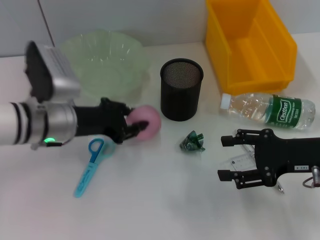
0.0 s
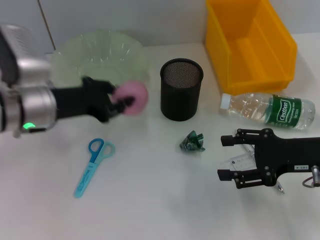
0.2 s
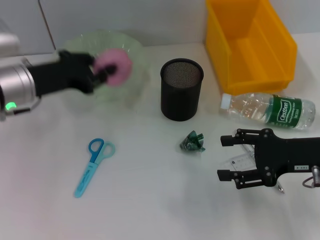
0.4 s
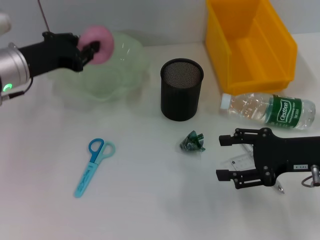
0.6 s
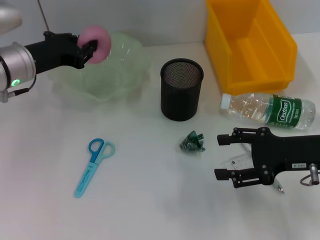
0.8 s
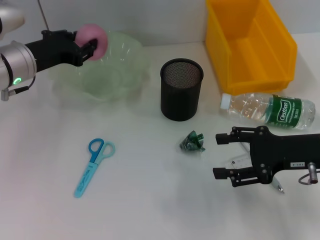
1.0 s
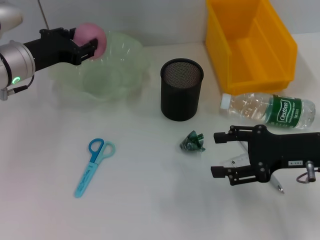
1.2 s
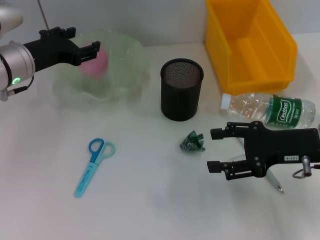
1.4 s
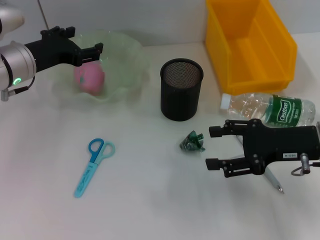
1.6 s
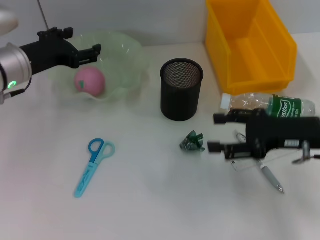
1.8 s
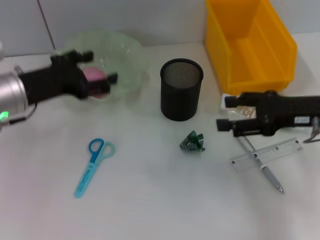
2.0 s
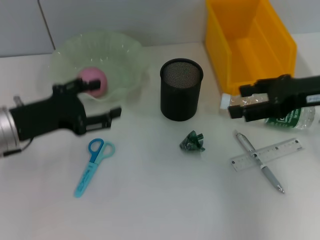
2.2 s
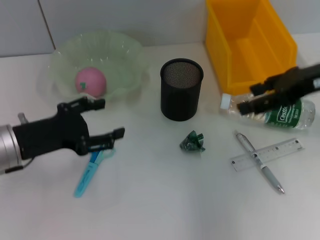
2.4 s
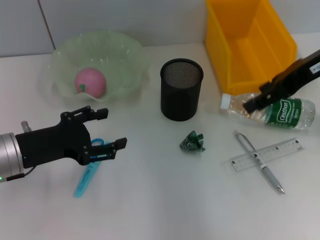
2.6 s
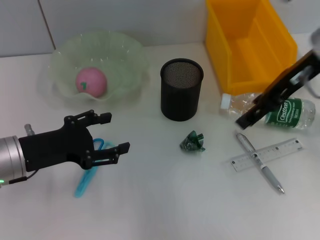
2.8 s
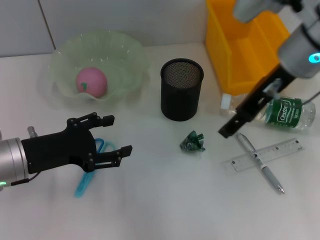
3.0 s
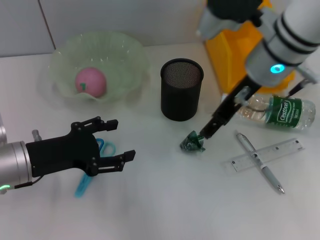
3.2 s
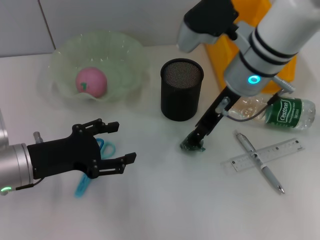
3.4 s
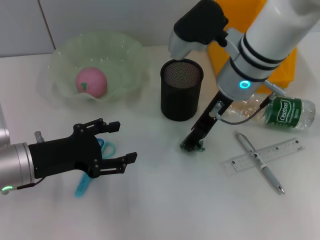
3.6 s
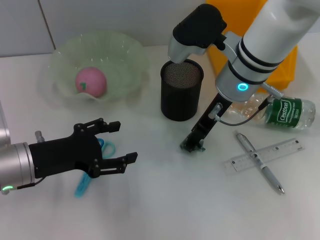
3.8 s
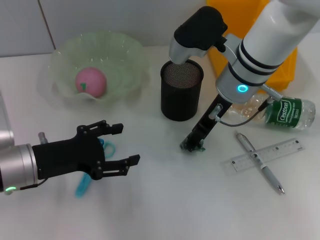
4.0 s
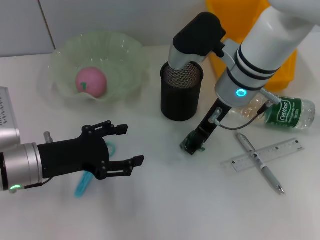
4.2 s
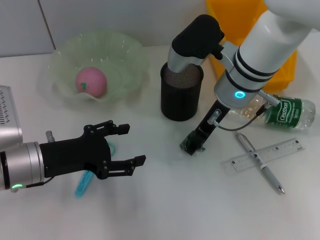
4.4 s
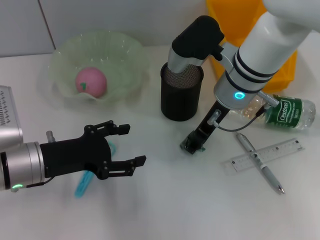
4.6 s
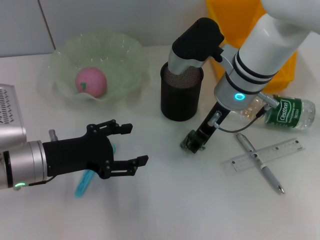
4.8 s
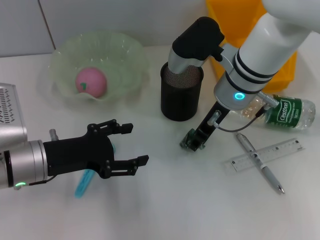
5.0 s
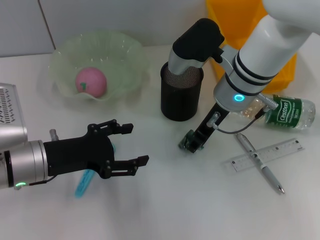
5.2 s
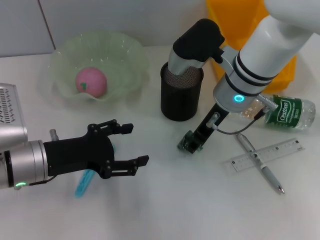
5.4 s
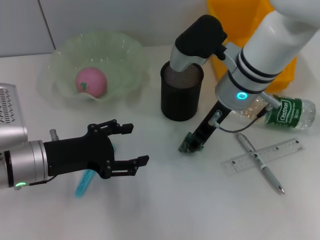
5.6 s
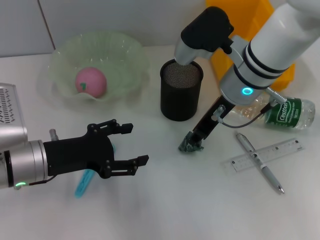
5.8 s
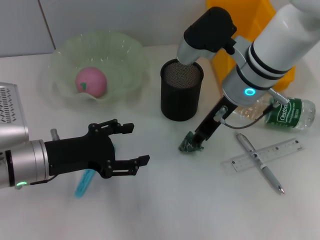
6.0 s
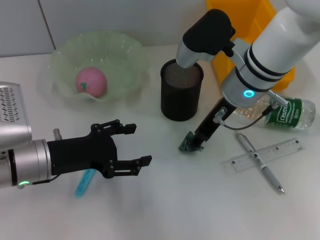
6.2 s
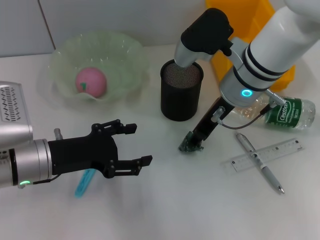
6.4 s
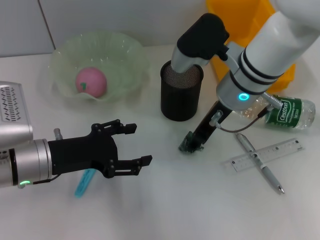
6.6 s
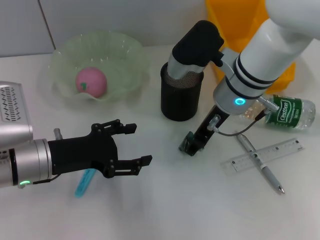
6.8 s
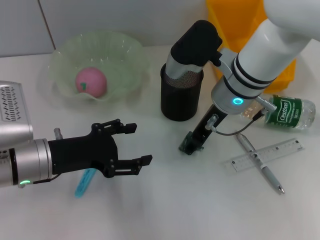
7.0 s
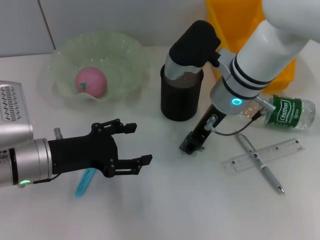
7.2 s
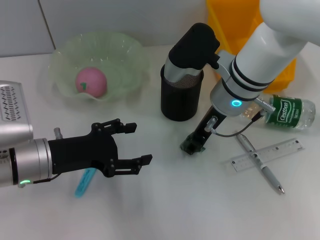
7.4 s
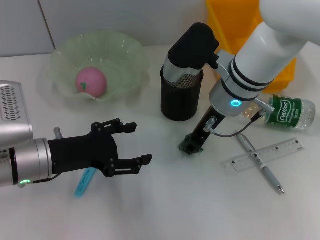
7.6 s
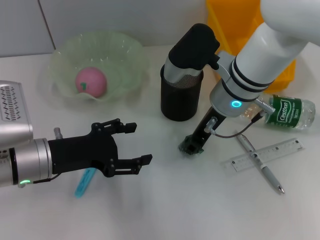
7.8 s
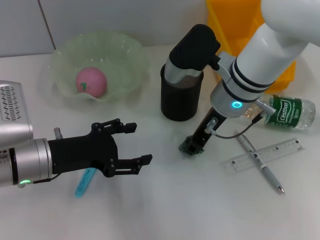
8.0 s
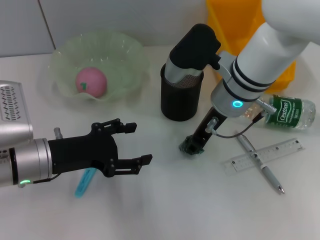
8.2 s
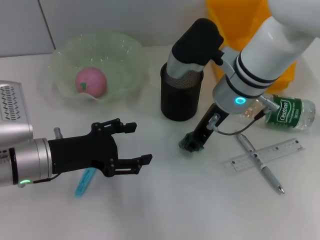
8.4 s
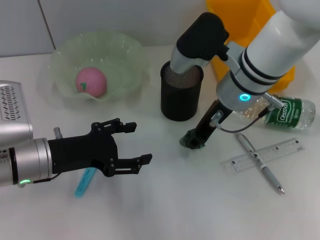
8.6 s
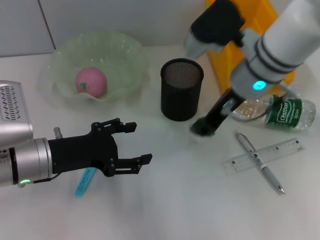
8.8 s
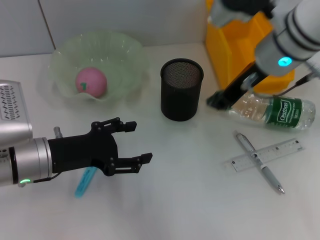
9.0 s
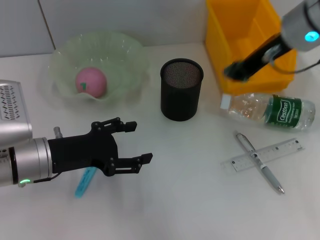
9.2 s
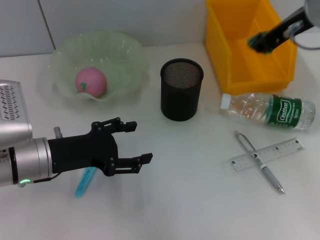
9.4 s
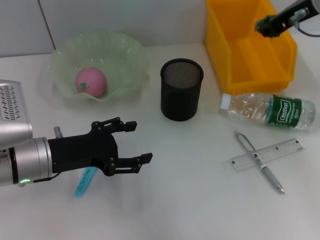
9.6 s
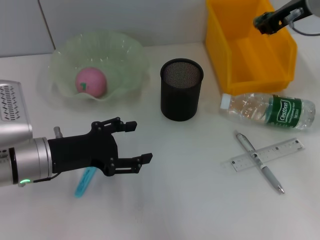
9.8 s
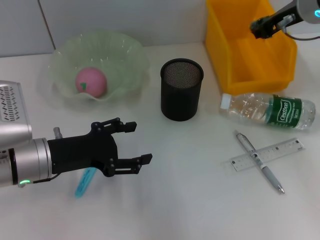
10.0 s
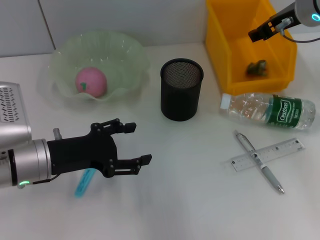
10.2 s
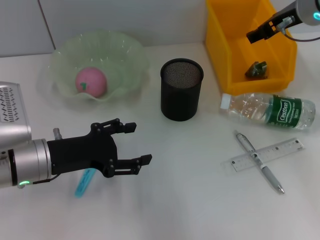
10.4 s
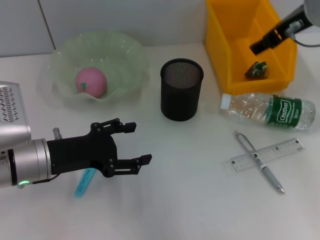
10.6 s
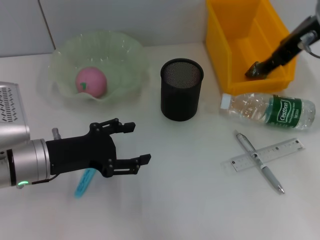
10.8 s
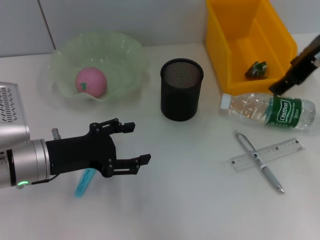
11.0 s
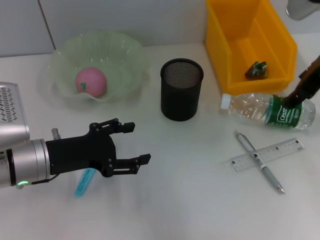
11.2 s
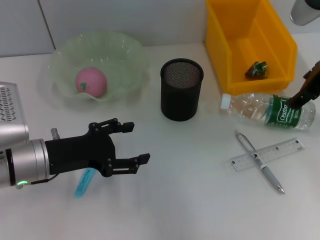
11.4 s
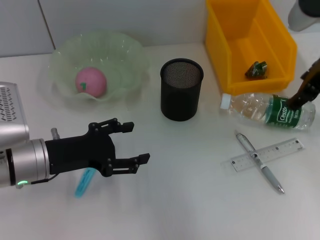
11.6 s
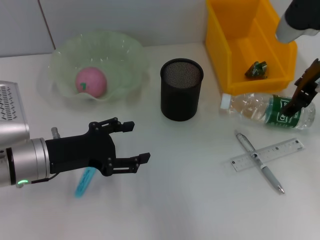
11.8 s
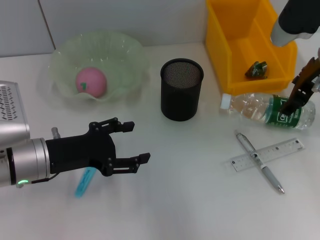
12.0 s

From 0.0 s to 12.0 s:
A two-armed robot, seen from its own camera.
Step, from 0.0 s to 1.2 s: Place the peach into the fruit bowl with the left hand.
Step, from 1.6 s to 8.0 s: Grab the plastic with the right hand.
Step, from 8.2 s to 10.2 s: Place the plastic into the trash can with the right hand.
From 0.0 s to 1.6 s: The left gripper travels forward by roughly 5 cm, and opens its fingers.
From 1.6 s to 3.0 s: The left gripper shifts some 10 cm backward. Meanwhile the right gripper heads upward, to the left and forward, covering about 15 cm.
From 3.0 s to 4.4 s: The right gripper is displaced downward and to the left by approximately 10 cm.
From 4.4 s to 6.0 s: The right gripper closes its fingers.
From 6.0 s to 7.6 s: There are only small adjustments of the grippers.
From 7.6 s to 9.0 s: The right gripper is displaced upward and to the right by approximately 10 cm.
From 9.0 s to 10.4 s: The right gripper heads to the right, covering approximately 5 cm, and opens its fingers.
From 10.4 s to 12.0 s: The right gripper shifts by some 5 cm.

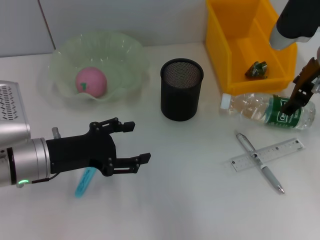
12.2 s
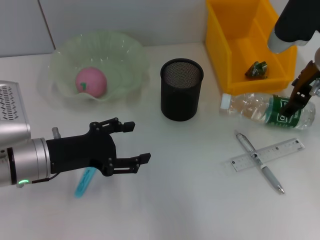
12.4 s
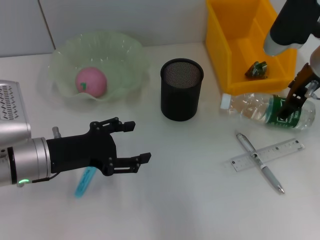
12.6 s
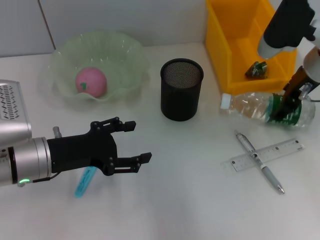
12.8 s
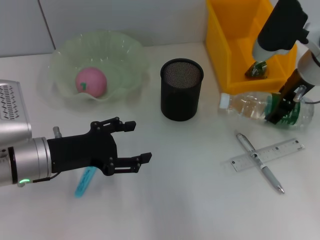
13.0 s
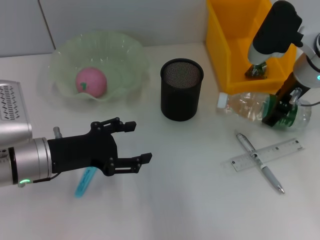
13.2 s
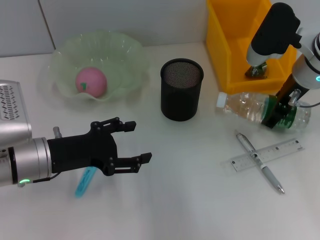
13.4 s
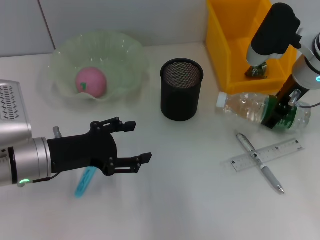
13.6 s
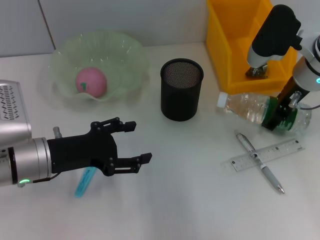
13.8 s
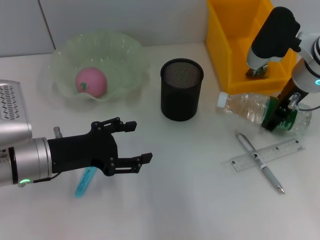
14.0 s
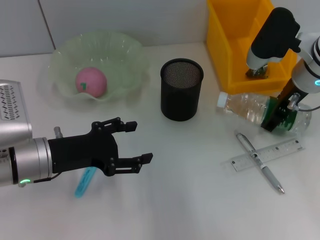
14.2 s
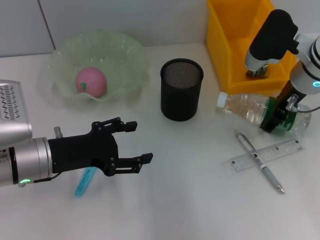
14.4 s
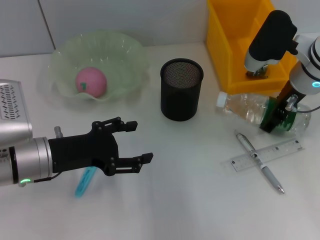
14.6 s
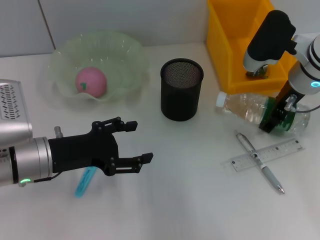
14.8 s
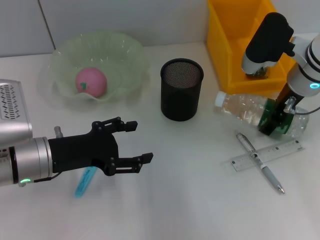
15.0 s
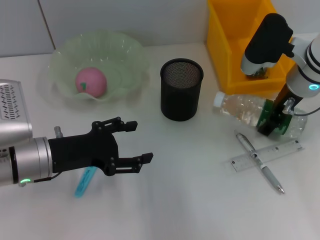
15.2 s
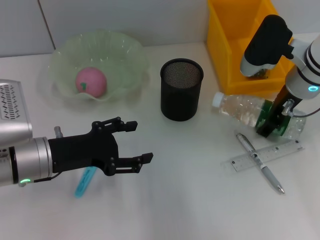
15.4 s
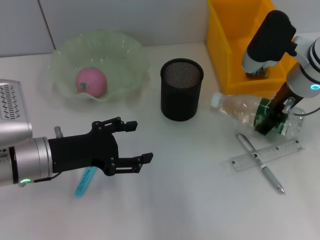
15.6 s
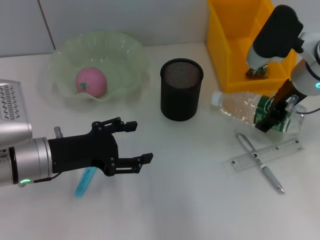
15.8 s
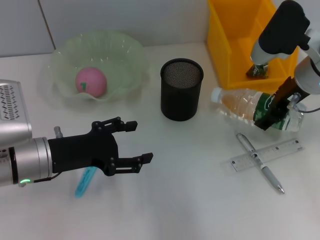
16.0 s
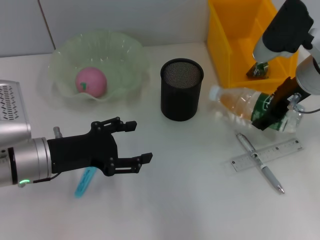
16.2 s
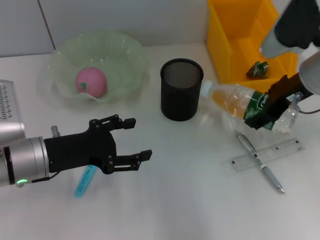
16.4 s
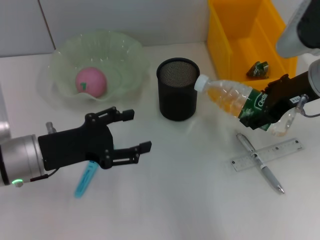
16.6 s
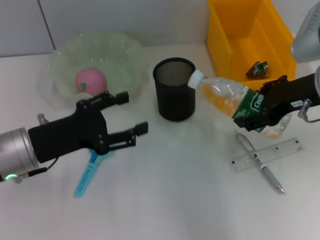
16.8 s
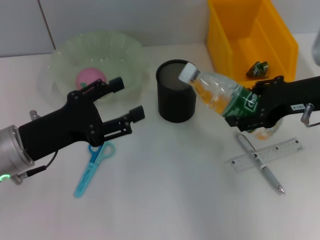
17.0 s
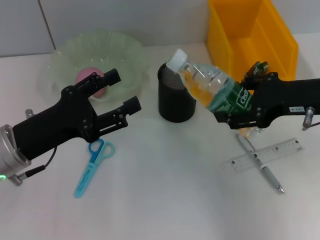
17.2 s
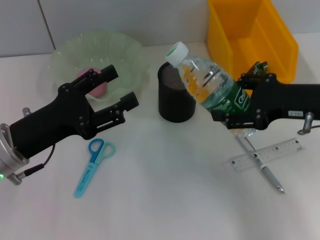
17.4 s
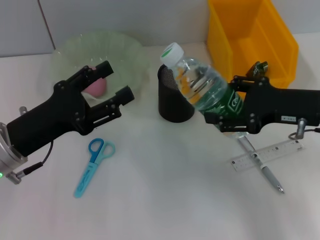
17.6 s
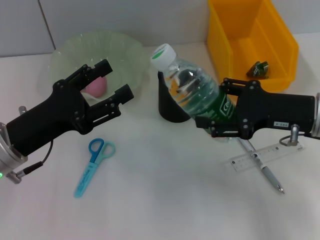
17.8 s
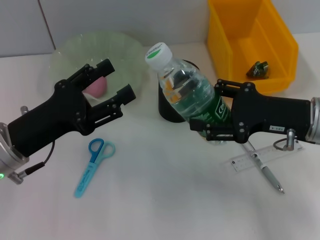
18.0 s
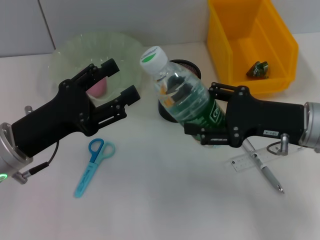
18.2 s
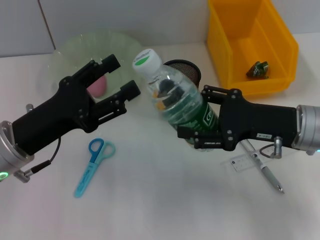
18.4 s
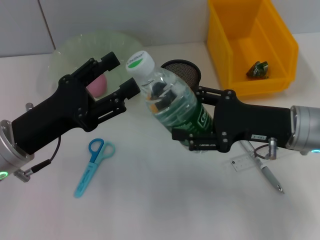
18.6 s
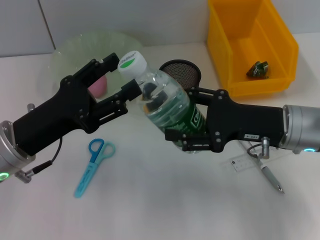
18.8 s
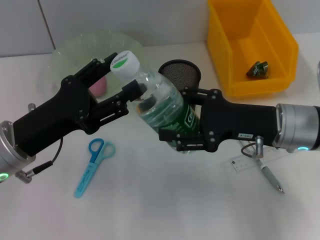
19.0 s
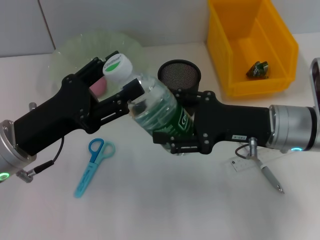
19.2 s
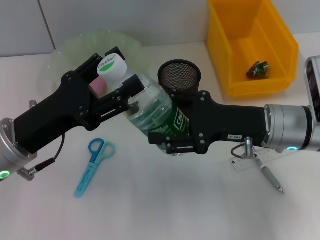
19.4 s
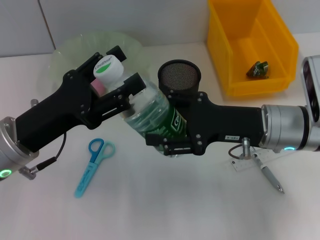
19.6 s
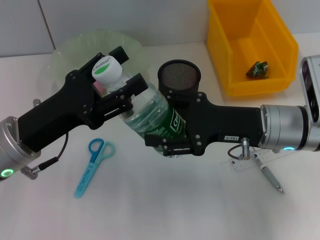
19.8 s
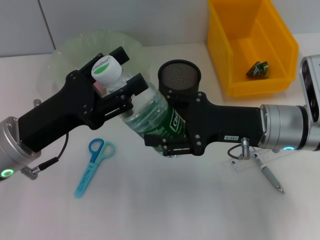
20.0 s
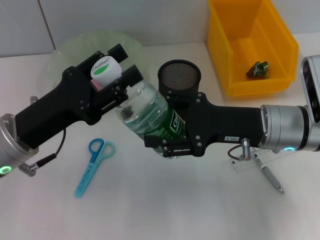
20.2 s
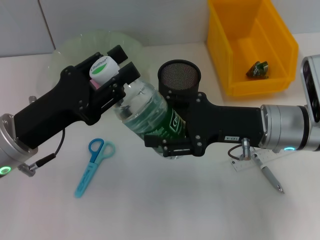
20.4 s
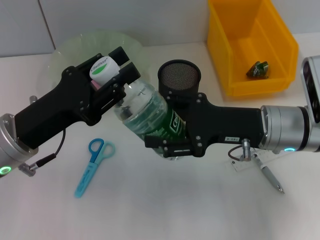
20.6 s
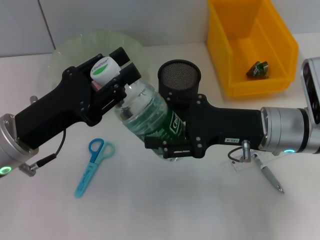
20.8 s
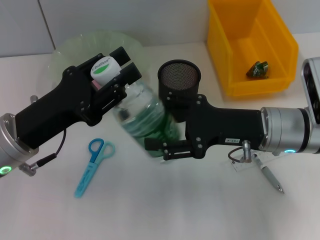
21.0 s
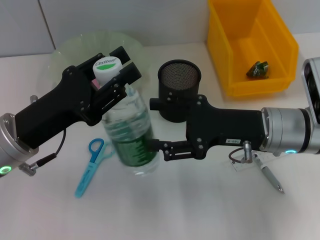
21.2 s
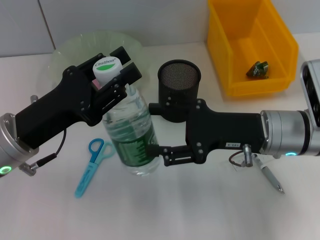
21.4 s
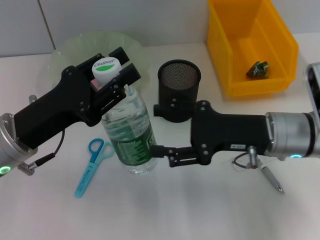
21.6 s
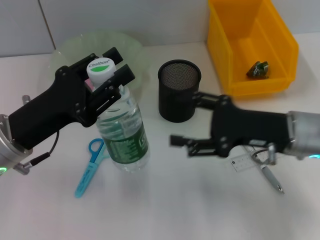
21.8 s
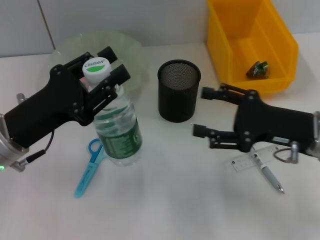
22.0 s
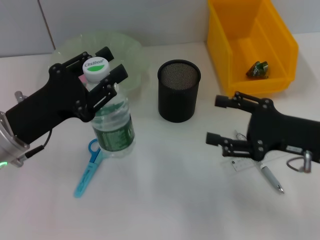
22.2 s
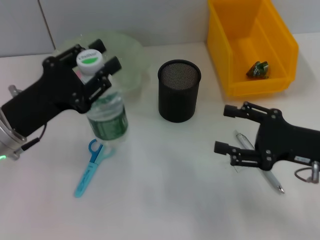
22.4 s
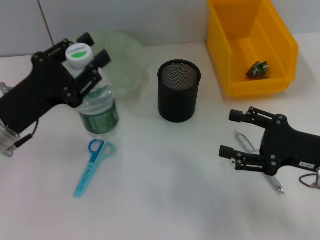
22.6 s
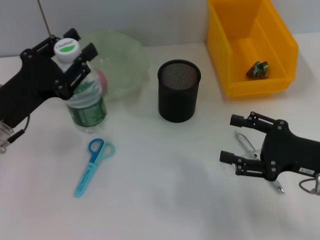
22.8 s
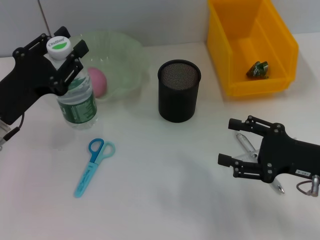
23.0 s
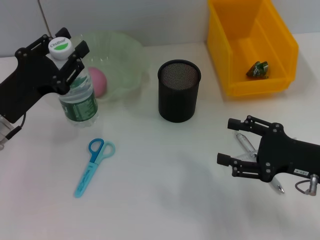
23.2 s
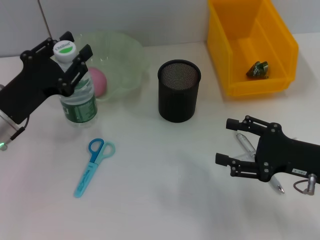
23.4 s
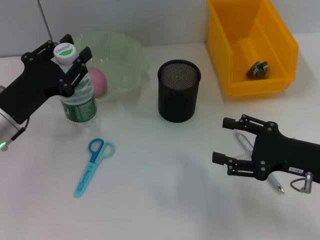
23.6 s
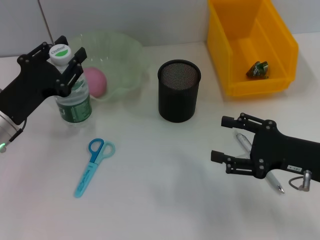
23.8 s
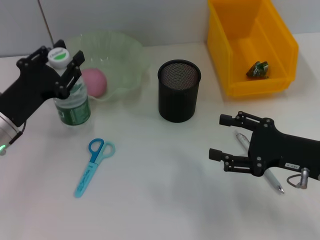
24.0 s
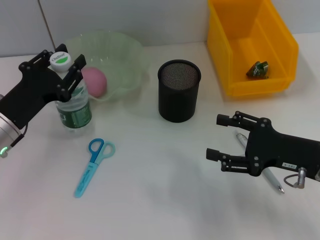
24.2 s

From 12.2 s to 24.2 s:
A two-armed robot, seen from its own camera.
Step, from 12.2 s to 15.4 s: Grab the water bottle with the right hand.
Step, from 15.8 s to 21.2 s: Pass the water bottle from the right hand to the left hand.
From 12.2 s to 13.8 s: There are only small adjustments of the grippers.
From 13.8 s to 15.2 s: Neither gripper changes place.
From 15.2 s to 16.6 s: The right gripper moves backward, some 5 cm.
From 16.6 s to 18.2 s: The right gripper heads downward and backward, covering about 10 cm.
From 18.2 s to 19.8 s: The right gripper shifts by about 5 cm.
From 19.8 s to 21.2 s: The left gripper closes.
From 21.2 s to 22.6 s: The right gripper travels to the right and backward by roughly 10 cm.
